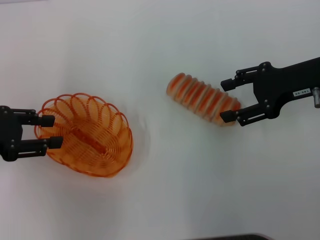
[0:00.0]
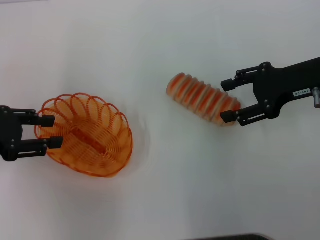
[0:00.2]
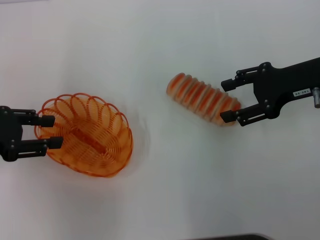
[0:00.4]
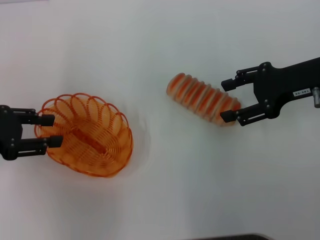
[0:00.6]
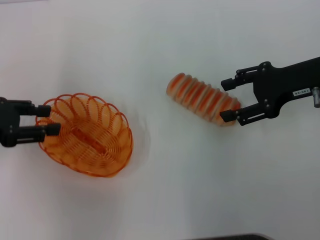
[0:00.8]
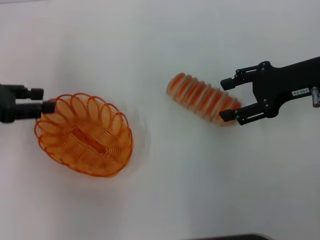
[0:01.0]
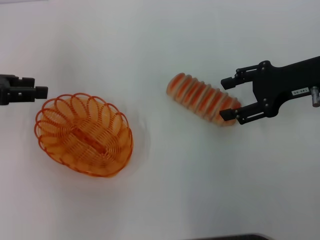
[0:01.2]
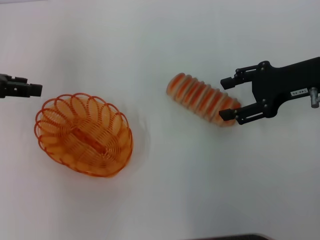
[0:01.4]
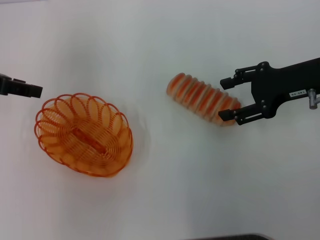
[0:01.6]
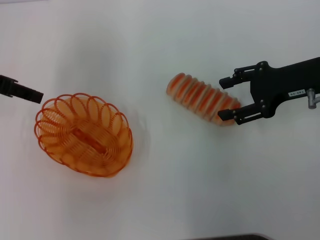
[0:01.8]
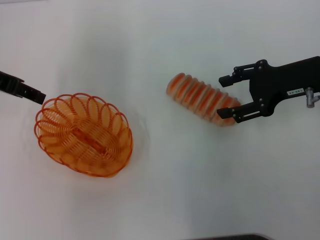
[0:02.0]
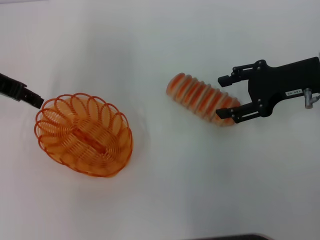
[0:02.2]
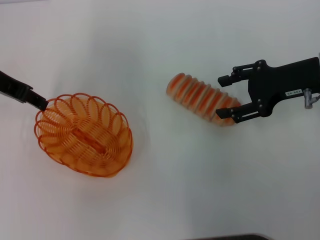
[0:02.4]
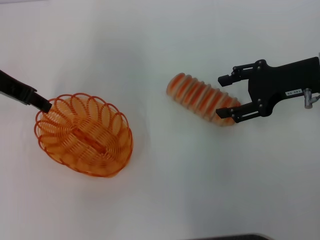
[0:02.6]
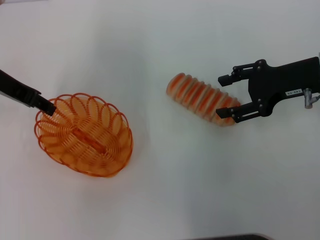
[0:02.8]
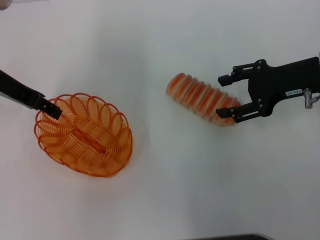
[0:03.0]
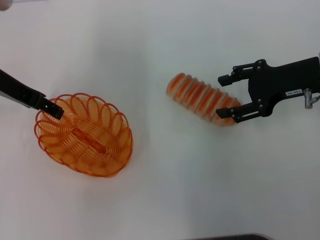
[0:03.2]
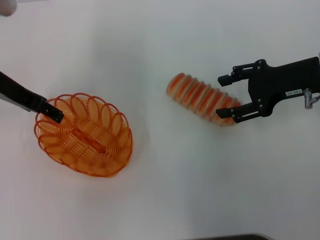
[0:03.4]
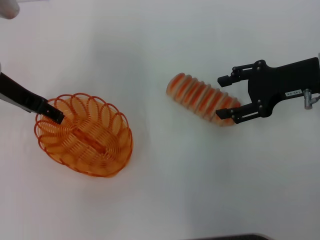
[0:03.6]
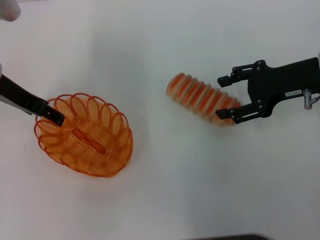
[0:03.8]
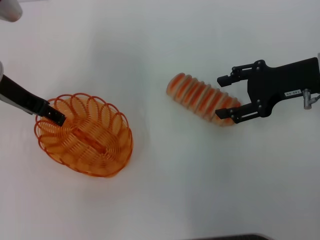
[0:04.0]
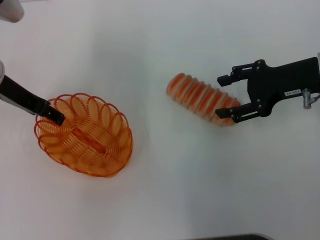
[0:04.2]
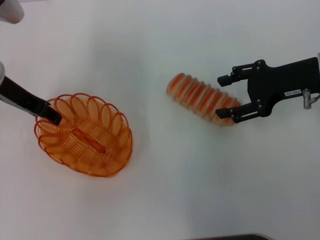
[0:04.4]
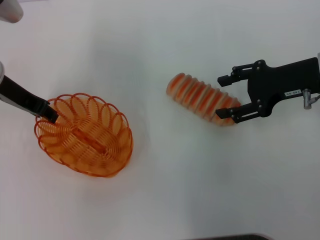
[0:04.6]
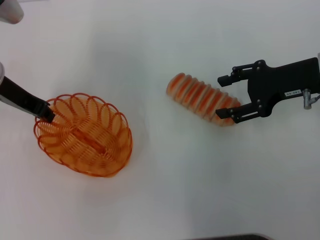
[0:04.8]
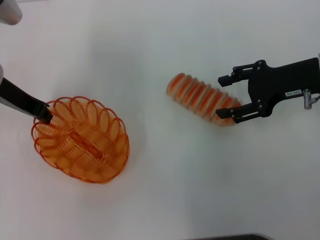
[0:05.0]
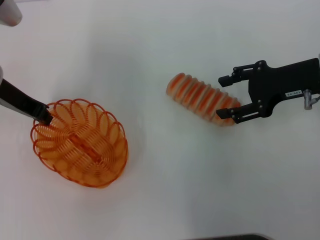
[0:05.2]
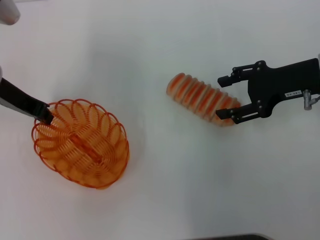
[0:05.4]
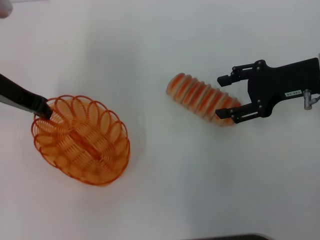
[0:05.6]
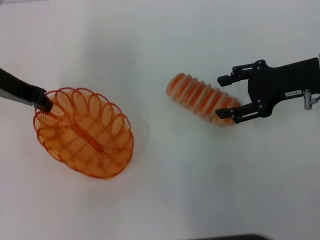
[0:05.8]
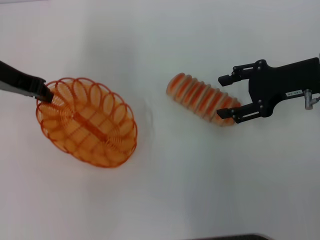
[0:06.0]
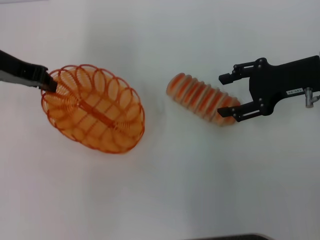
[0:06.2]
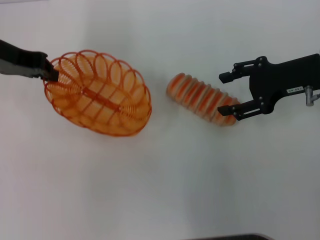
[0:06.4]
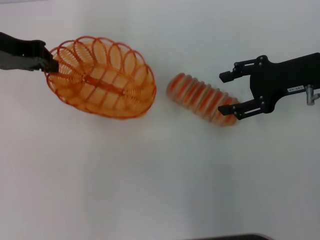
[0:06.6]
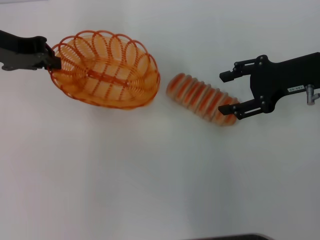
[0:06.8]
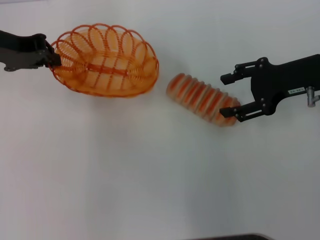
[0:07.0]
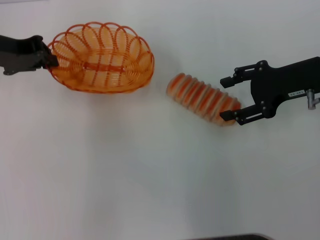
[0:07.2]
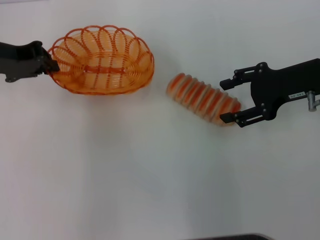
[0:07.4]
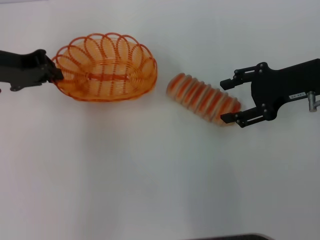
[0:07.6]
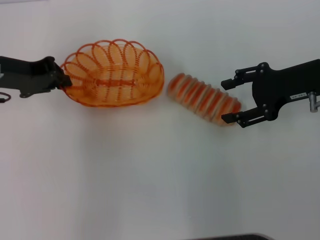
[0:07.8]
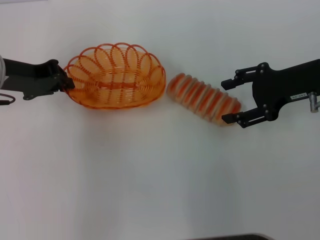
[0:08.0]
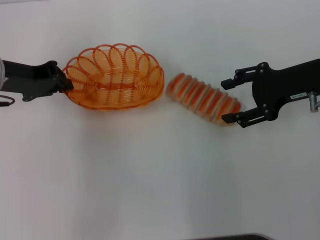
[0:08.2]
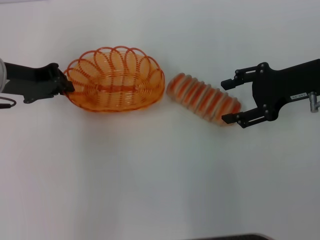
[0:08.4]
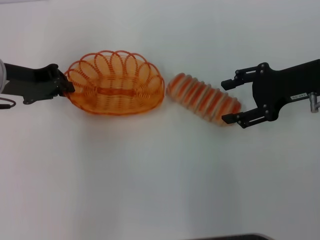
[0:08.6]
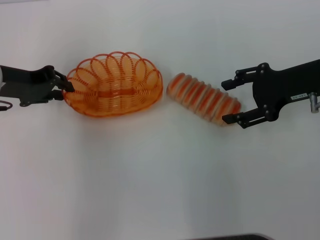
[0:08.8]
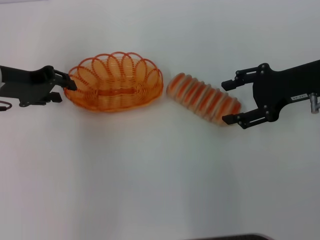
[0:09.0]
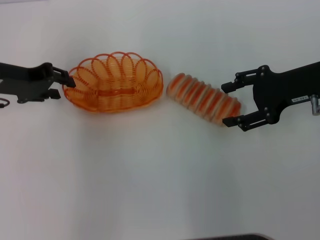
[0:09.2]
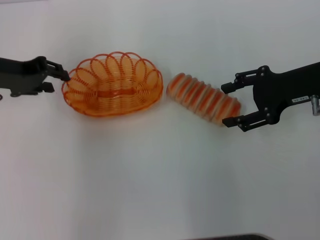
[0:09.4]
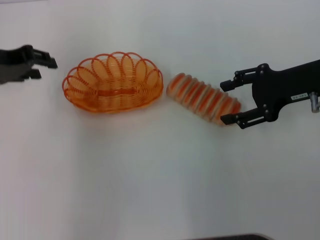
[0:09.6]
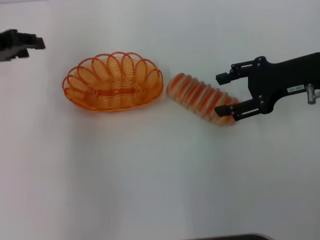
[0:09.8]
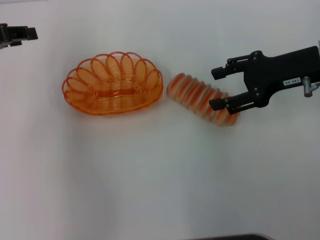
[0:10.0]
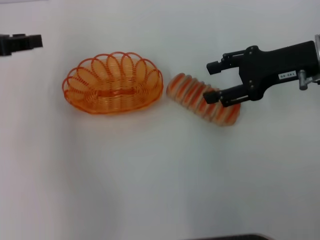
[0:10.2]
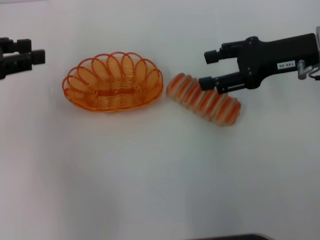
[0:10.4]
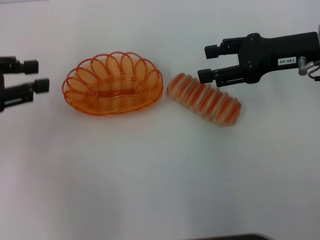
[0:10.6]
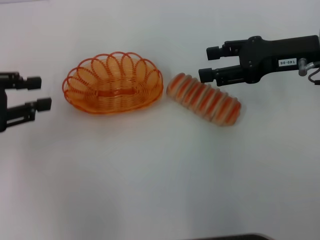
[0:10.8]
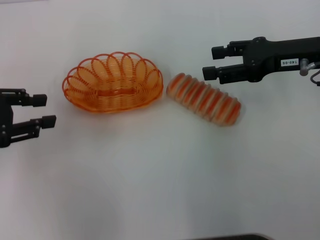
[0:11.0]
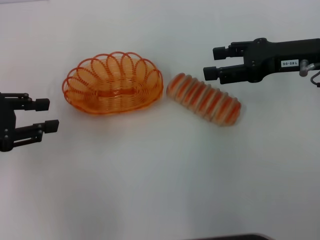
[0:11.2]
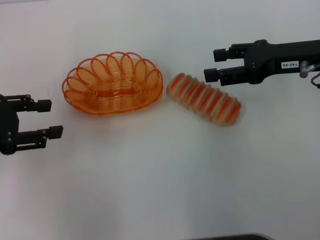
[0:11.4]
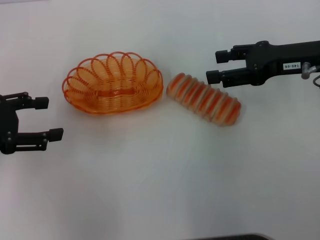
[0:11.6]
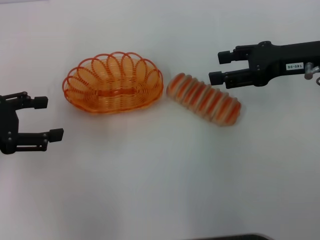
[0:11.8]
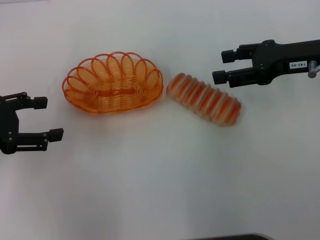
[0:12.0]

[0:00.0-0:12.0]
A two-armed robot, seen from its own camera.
Step, 0:00.0 to 0:05.6: Pick up the basket with the left gripper.
Step, 0:05.8 to 0:09.4: Place the basket in the center of view with the left gripper.
0:00.0 to 0:01.6: The left gripper moves forward and upward, some 10 cm.
0:01.6 to 0:03.0: The left gripper is displaced to the right by some 5 cm.
0:03.0 to 0:04.4: The grippers move only a little.
0:04.4 to 0:06.0: The left gripper closes its fingers.
0:07.6 to 0:09.0: The grippers stay close to where they were, moving slightly.
0:09.0 to 0:10.4: The left gripper moves to the left and upward, about 10 cm.
0:10.4 to 0:12.0: The left gripper shifts some 5 cm downward, and opens up.

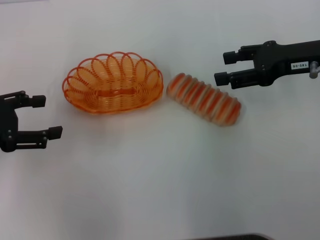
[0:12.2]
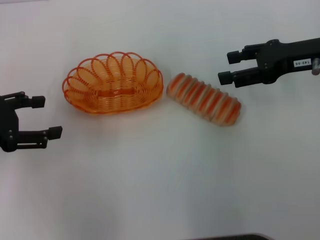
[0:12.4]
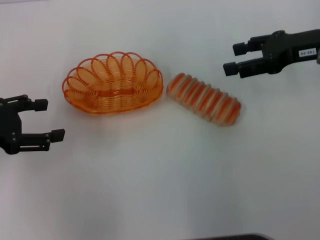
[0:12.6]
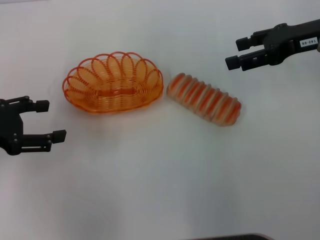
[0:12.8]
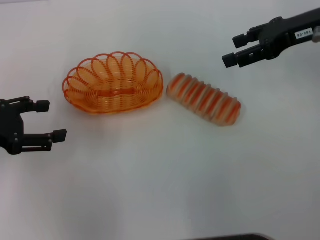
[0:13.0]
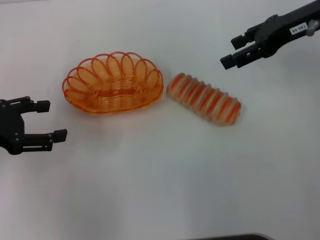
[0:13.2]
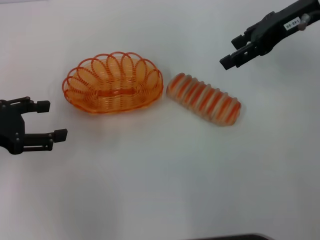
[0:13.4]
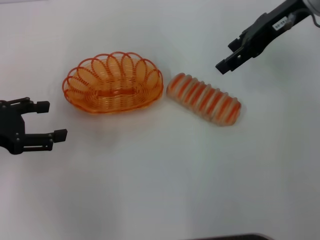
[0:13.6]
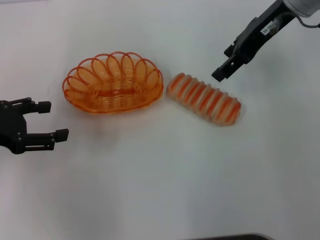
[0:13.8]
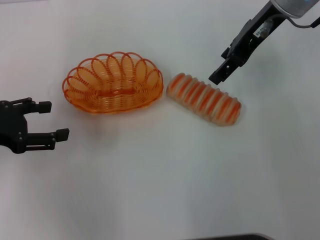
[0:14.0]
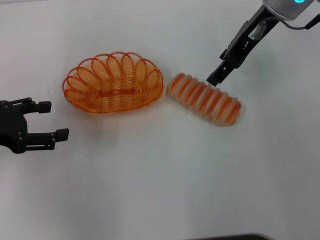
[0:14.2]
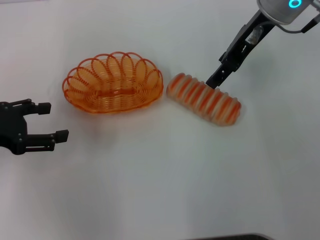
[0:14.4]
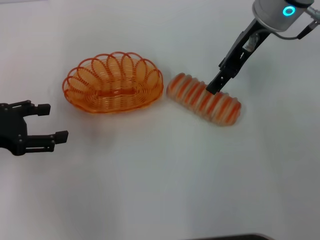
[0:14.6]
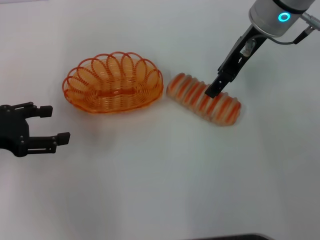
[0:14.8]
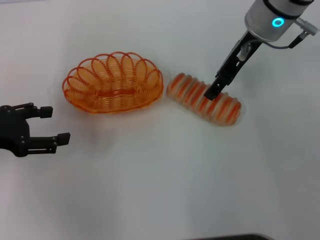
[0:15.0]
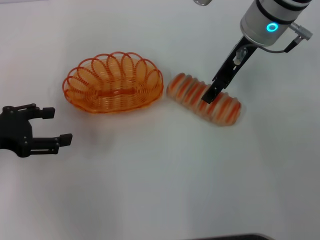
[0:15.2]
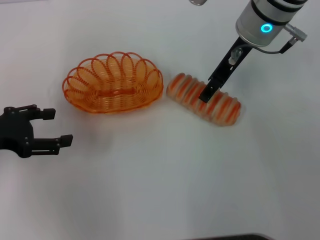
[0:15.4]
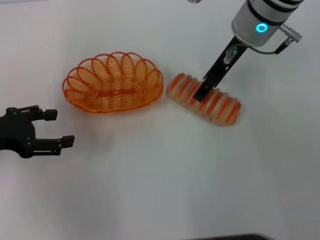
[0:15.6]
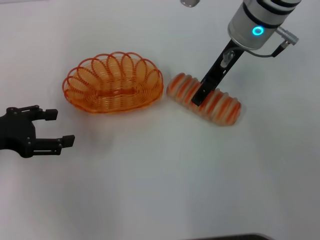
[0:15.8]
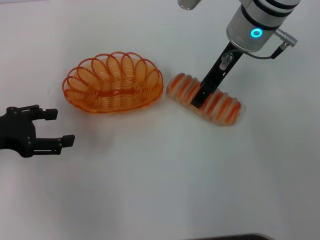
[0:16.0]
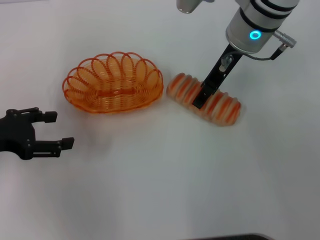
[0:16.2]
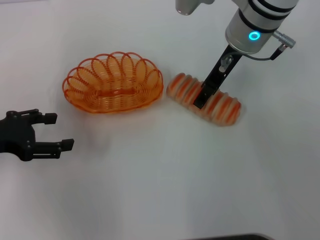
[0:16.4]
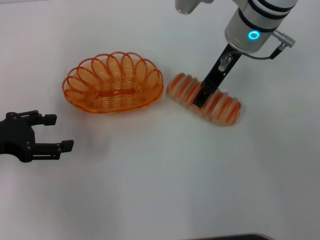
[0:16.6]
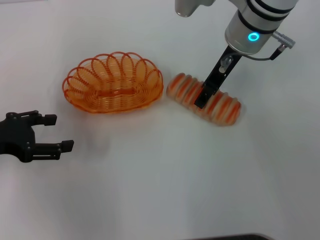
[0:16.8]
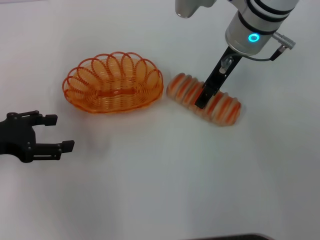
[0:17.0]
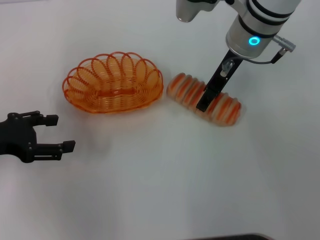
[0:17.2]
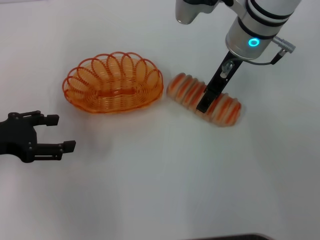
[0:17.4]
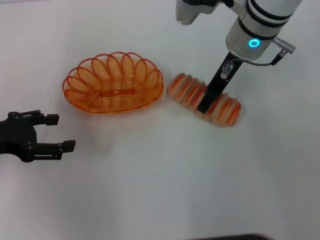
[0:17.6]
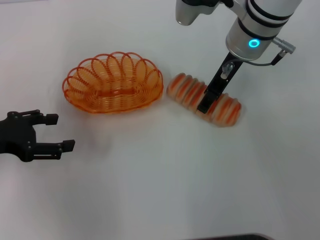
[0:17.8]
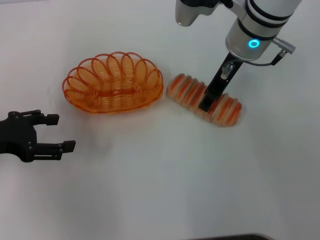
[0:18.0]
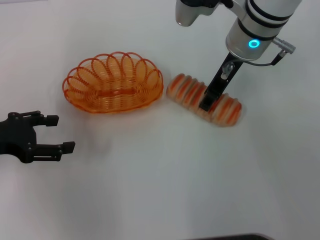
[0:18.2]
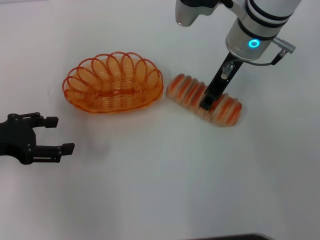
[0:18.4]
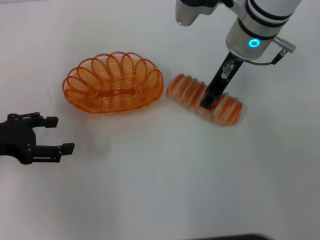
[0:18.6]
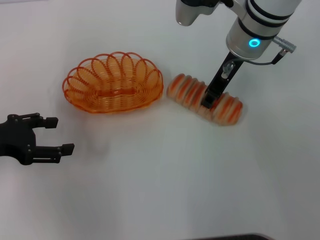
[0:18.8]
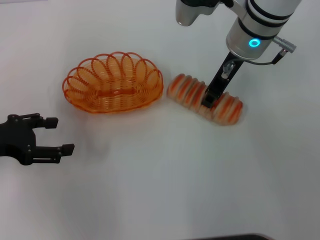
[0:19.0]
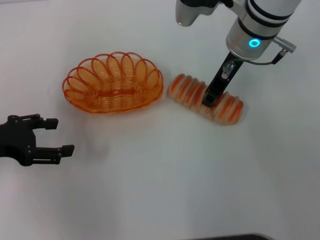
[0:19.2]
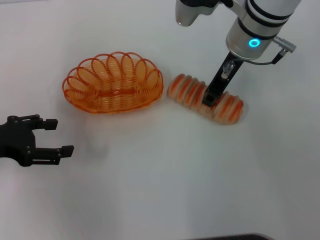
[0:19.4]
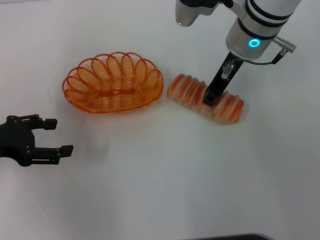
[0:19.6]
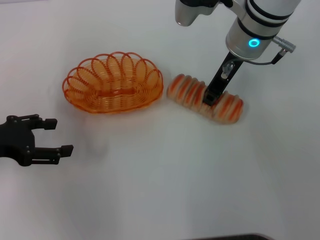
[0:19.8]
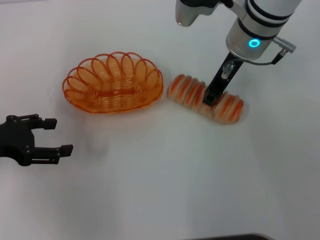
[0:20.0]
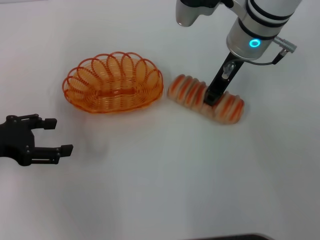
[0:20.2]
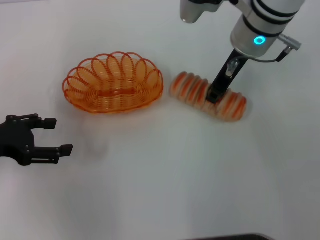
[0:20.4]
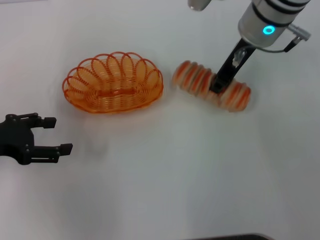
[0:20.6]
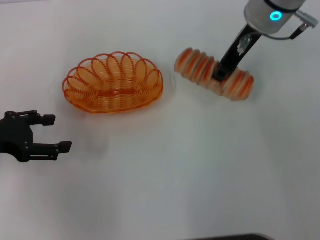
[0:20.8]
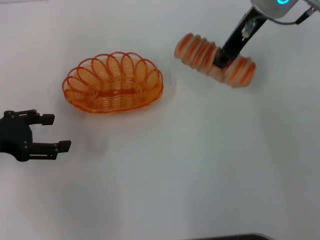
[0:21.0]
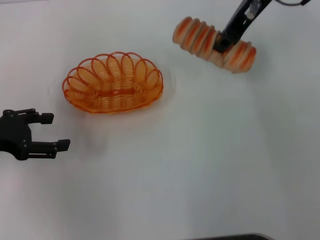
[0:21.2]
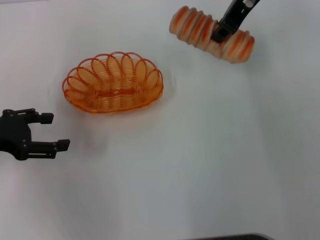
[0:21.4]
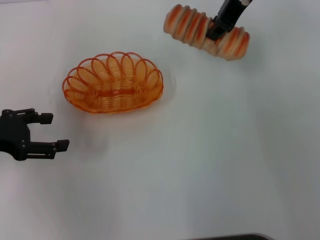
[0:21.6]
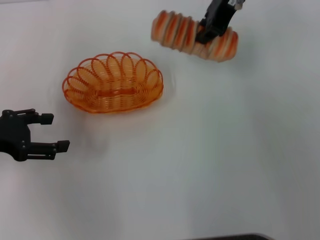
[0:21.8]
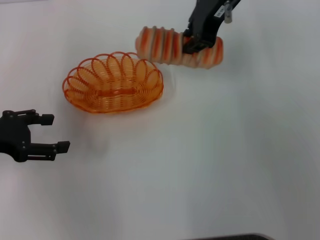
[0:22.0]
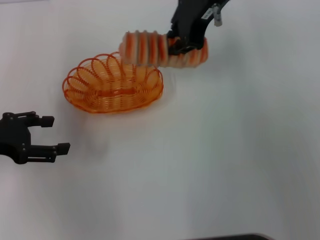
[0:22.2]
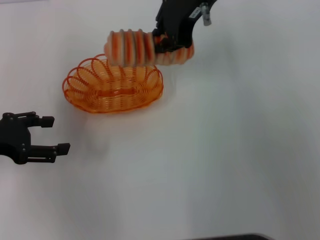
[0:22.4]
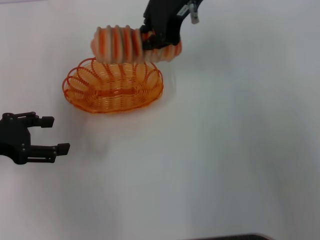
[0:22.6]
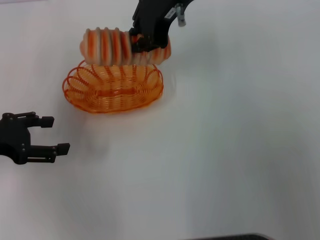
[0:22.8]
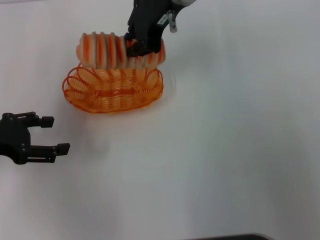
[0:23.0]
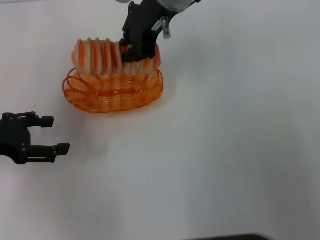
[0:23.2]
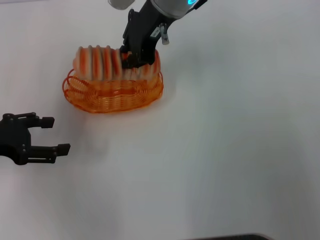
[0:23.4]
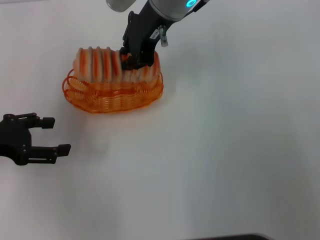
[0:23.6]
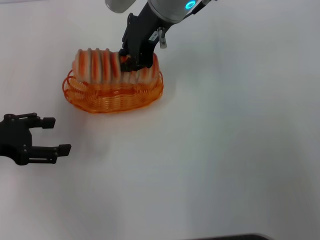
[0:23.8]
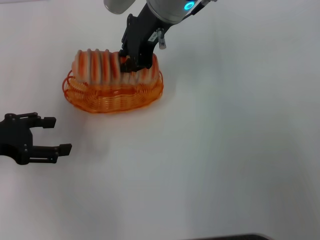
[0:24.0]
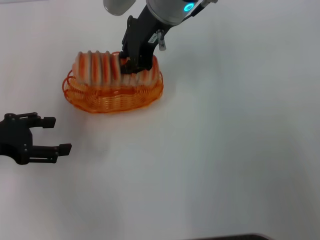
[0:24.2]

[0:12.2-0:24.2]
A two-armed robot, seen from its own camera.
Step, 0:12.2 to 0:20.4: Pick up the long bread with the right gripper.
0:12.2 to 0:13.8: The right gripper is displaced to the left, upward and forward by approximately 15 cm.
0:13.8 to 0:15.2: The right gripper changes place by roughly 5 cm.
0:15.2 to 0:16.6: The grippers move only a little.
0:16.6 to 0:18.2: The right gripper closes.
0:18.2 to 0:19.8: The right gripper closes up.
0:19.8 to 0:21.2: The right gripper travels upward by some 10 cm.
0:21.2 to 0:22.6: The right gripper is displaced to the left by about 10 cm.
0:22.6 to 0:24.2: The right gripper changes place by roughly 5 cm.
